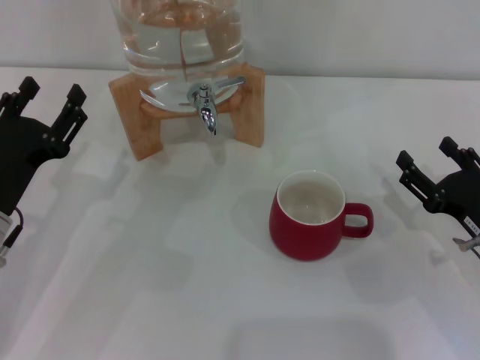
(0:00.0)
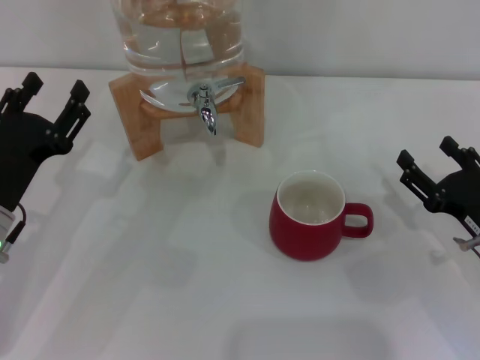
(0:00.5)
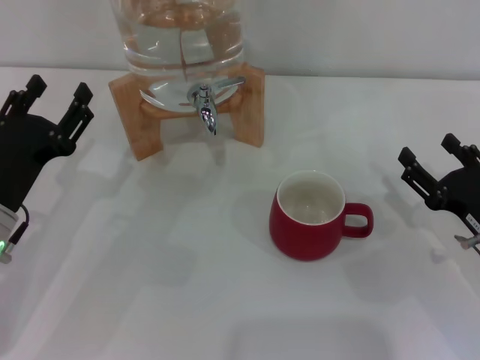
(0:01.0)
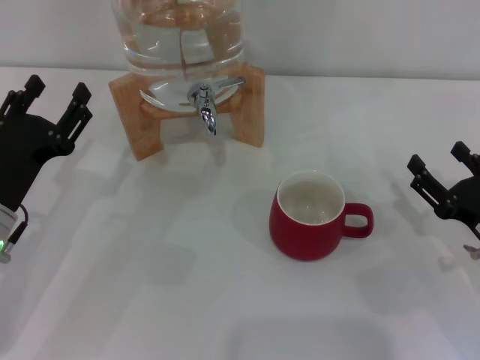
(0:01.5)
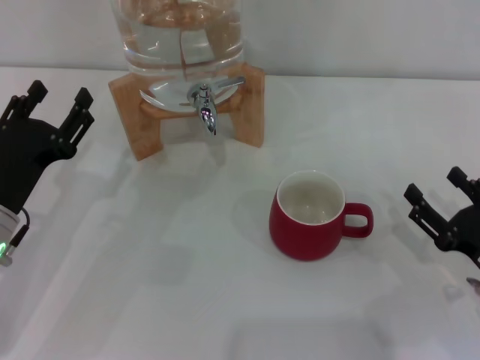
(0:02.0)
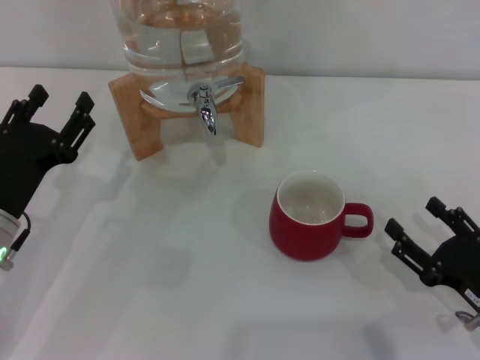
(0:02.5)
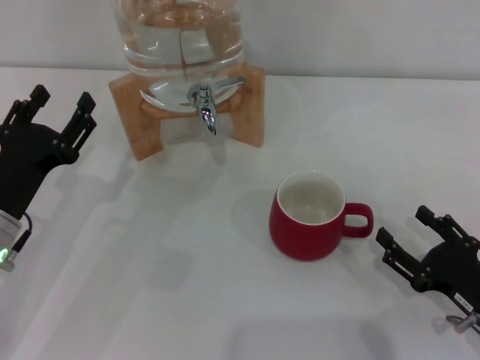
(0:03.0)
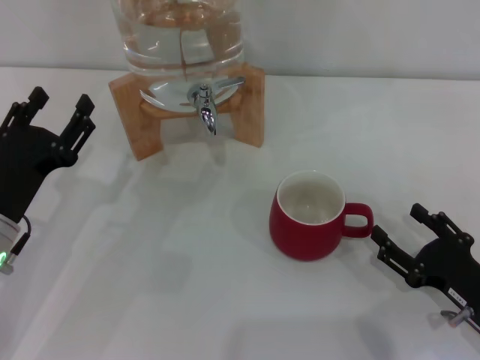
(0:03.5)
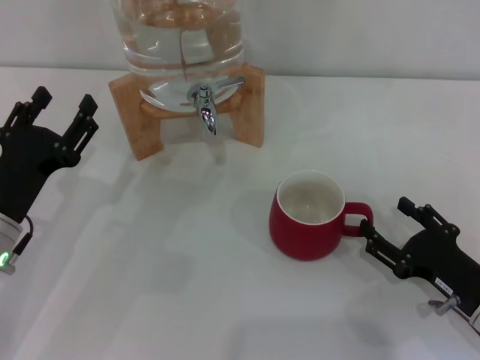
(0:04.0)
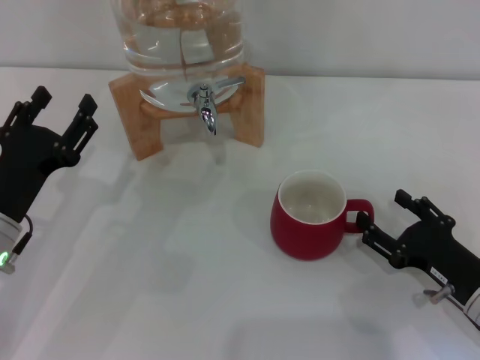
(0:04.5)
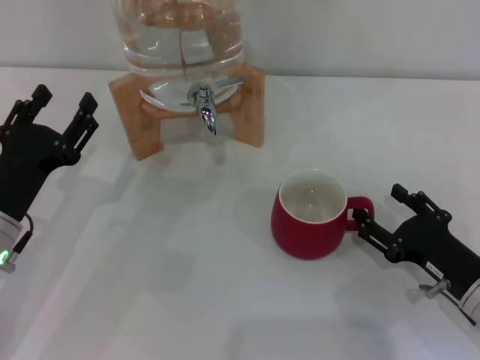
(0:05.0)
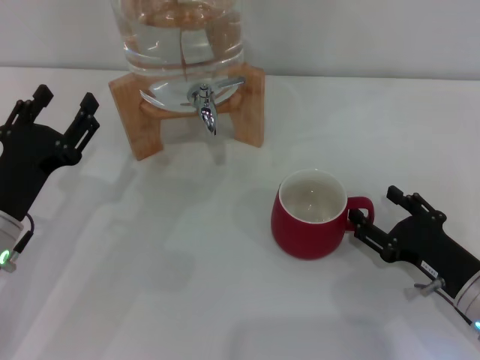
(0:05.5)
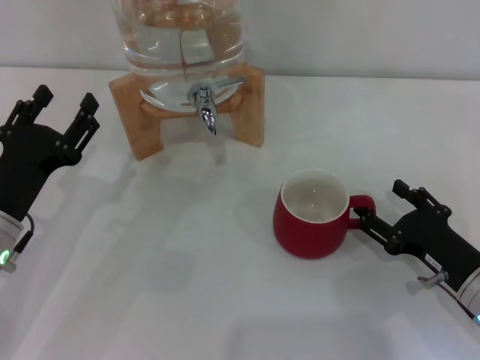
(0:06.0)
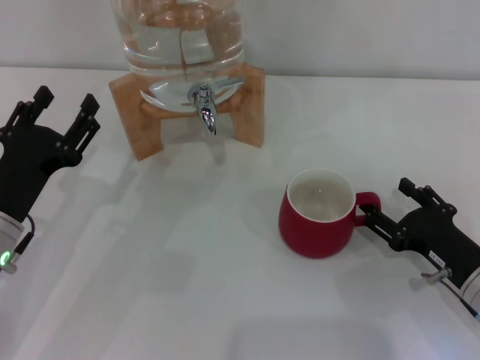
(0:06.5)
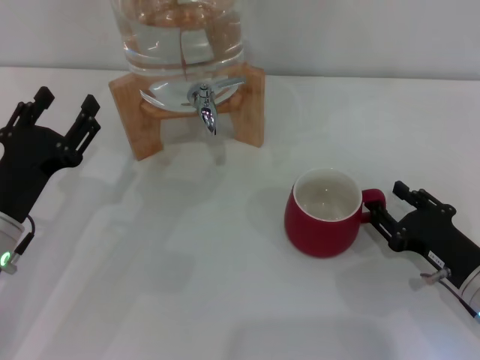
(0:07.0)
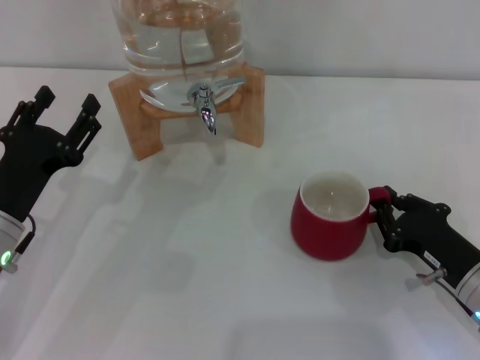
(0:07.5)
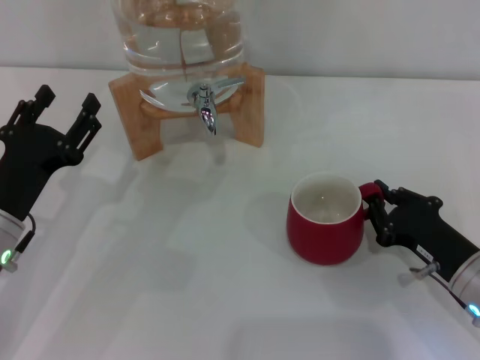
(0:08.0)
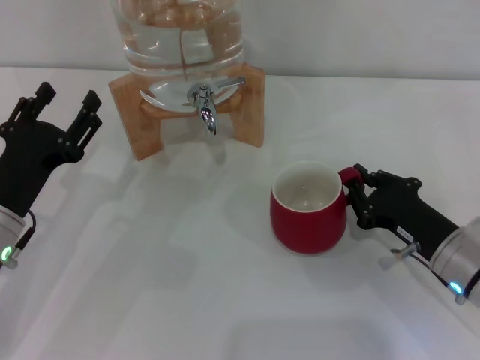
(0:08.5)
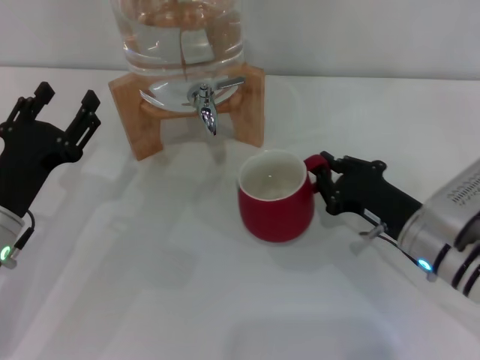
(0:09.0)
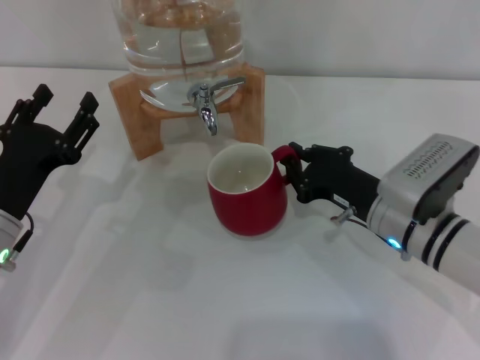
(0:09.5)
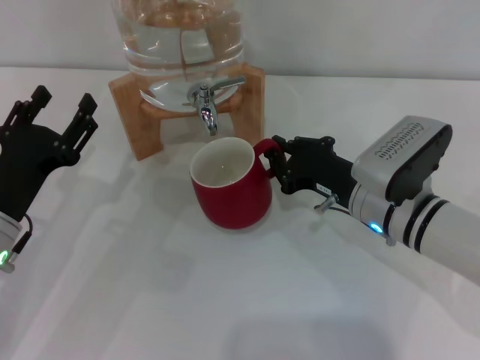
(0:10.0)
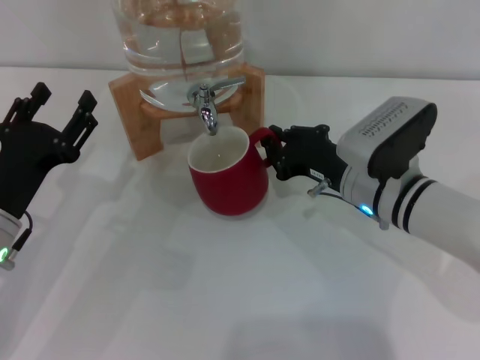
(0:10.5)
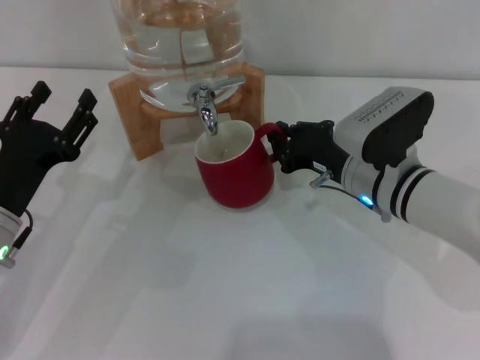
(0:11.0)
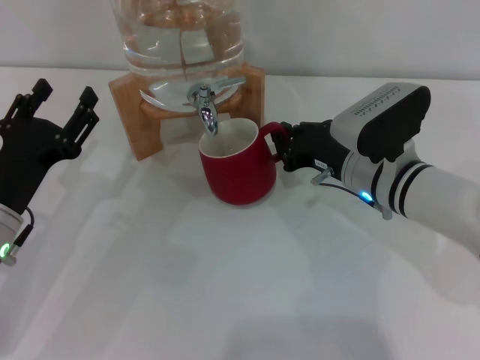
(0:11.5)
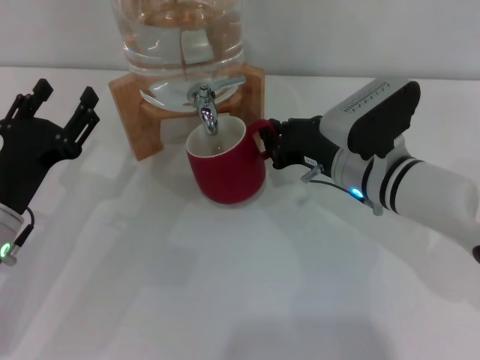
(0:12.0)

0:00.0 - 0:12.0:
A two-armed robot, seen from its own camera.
Task of the whole recording: the right gripper pick up the red cup and place it horizontally under the faucet, the left gripper turn on the faucet to fill the cup, and then turn off the faucet.
0:00.0 - 0:02.0: The grippers stay close to where they were, moving slightly.
0:02.0 - 0:06.0: The grippers move only a little.
0:06.0 - 0:08.0: The right gripper closes.
0:08.0 - 0:10.0: The right gripper shifts some 10 cm to the left and forward.
0:10.0 - 0:12.0: There are only small adjustments of the grippers.

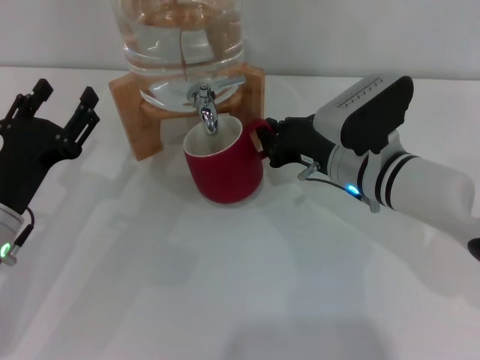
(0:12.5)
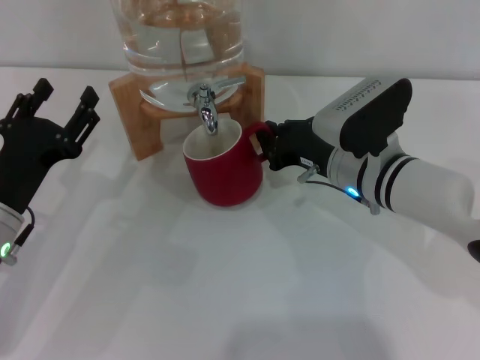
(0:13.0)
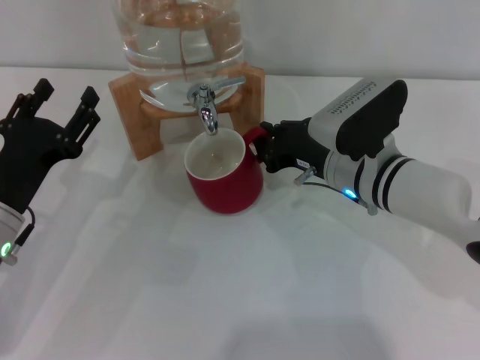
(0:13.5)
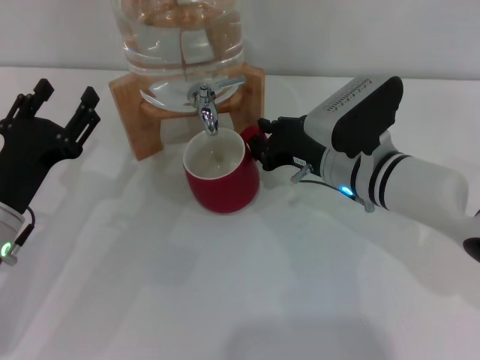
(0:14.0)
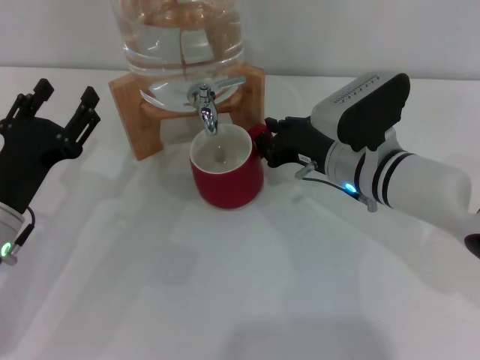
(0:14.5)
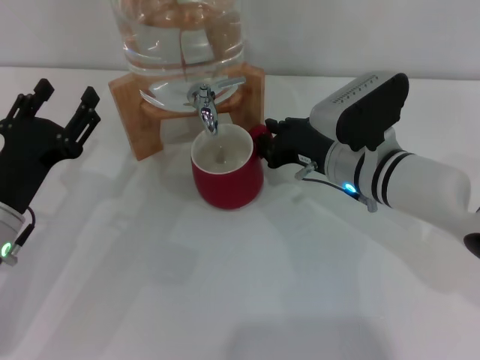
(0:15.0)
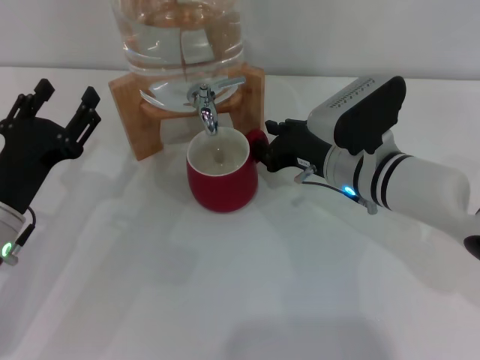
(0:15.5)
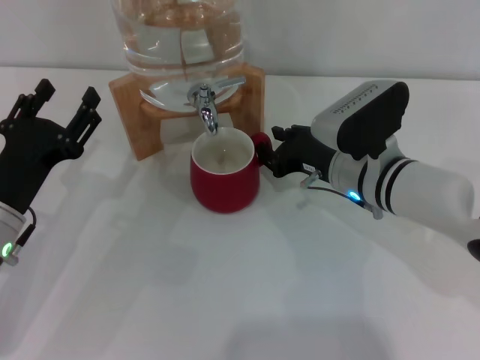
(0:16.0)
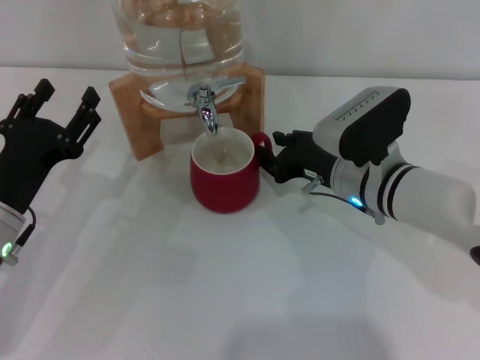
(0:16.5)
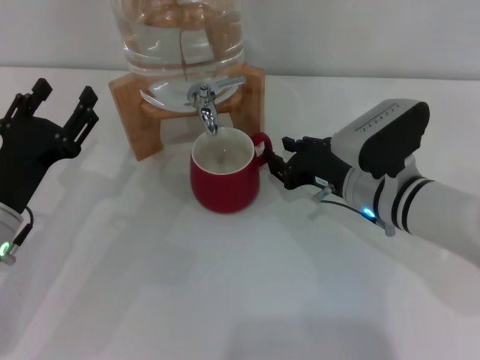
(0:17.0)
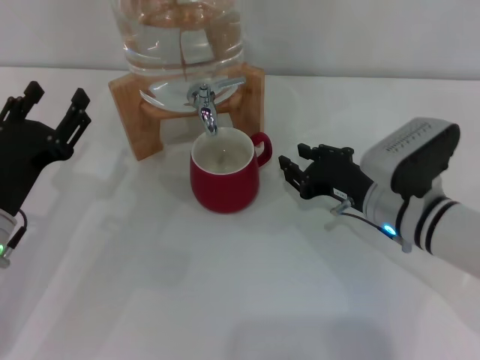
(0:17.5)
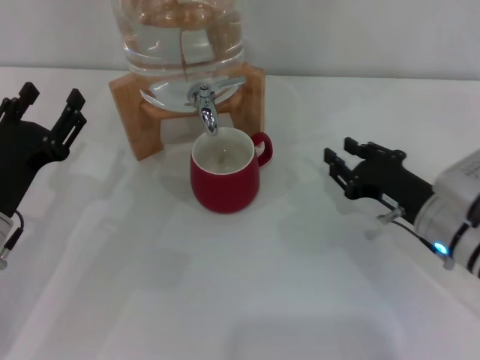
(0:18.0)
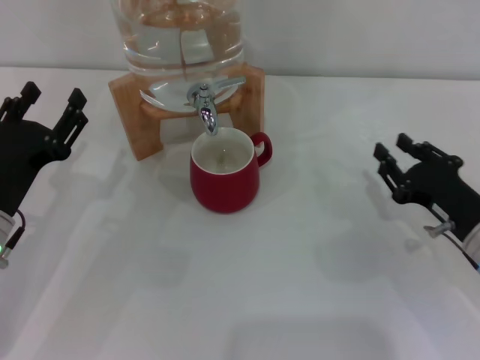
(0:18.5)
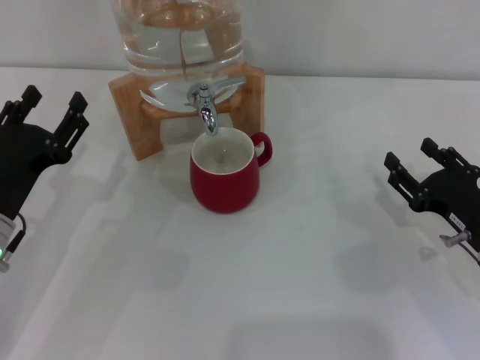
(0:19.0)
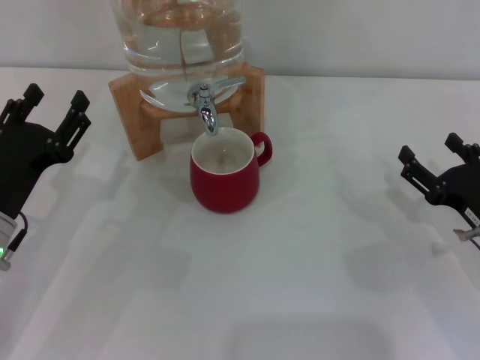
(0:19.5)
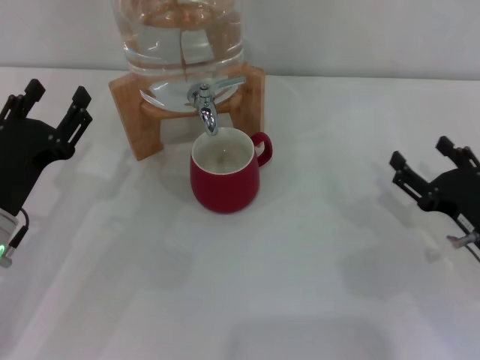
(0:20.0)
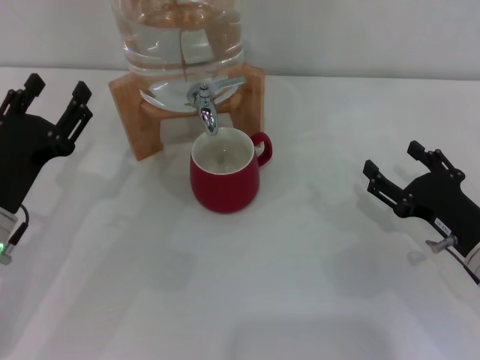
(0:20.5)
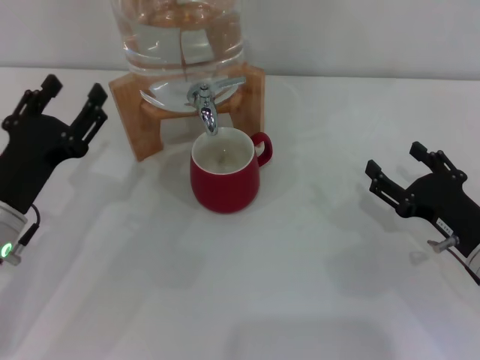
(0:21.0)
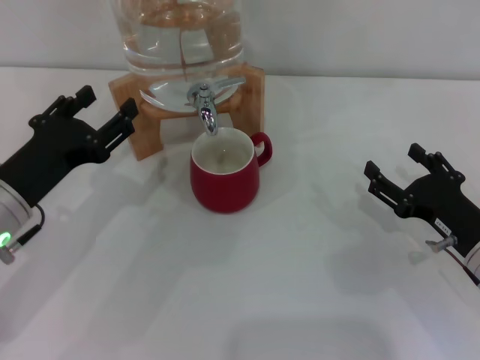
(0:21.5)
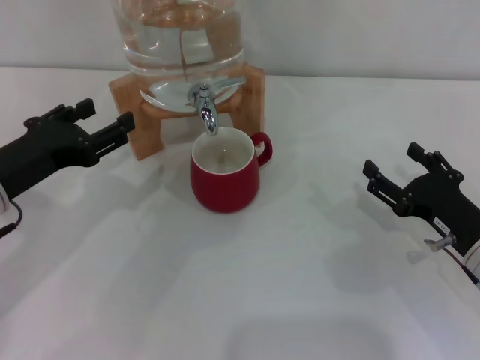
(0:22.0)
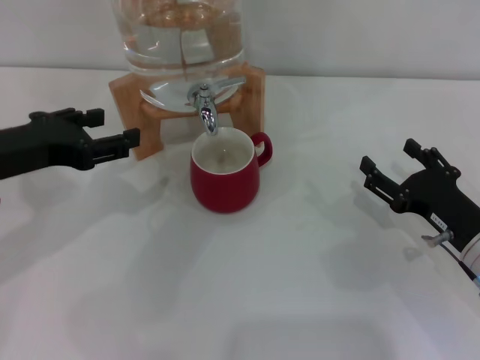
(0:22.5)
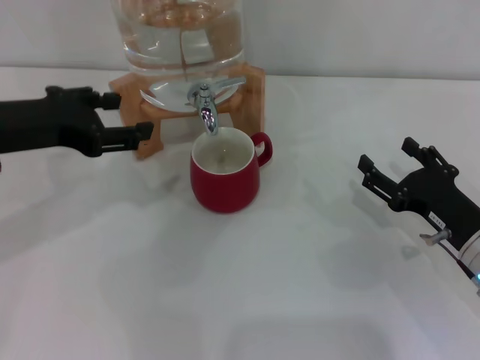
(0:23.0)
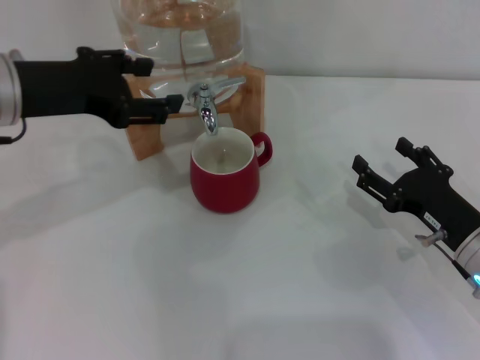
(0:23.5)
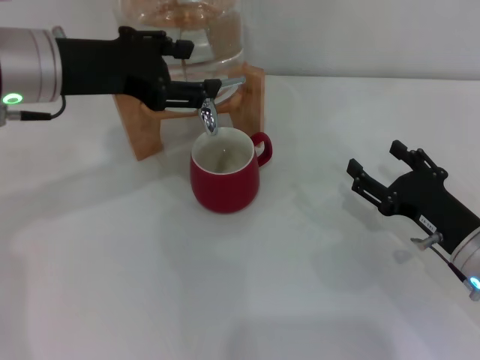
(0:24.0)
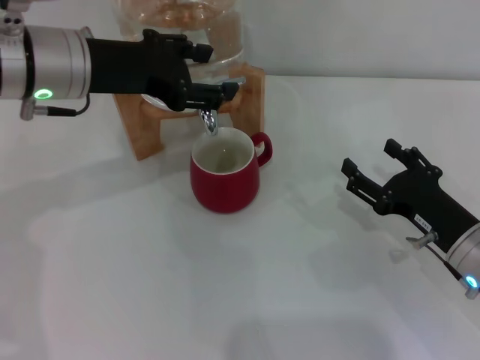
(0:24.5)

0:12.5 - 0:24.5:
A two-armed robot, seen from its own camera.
Task of the whole recording: the right gripper pick up the red cup and place it horizontally under the faucet, the left gripper turn on the faucet to fill the cup, and then turn off the faucet.
Step, 0:12.5 - 0:17.0: Move the cup beneath the water dispenser nozzle with the right gripper.
0:12.5 - 0:14.5: Both grippers stay put.
0:14.5 - 0:16.5: The grippers make only small movements.
0:16.5 - 0:18.5: The right gripper heads to the right and backward, covering roughly 15 cm.
0:18.5 - 0:20.5: The right gripper opens its fingers.
0:20.5 - 0:22.5: The left gripper moves upward, about 10 cm.
0:22.5 - 0:24.5: The left gripper shifts some 10 cm forward and to the right.

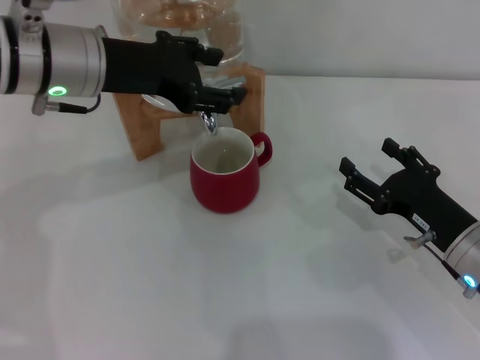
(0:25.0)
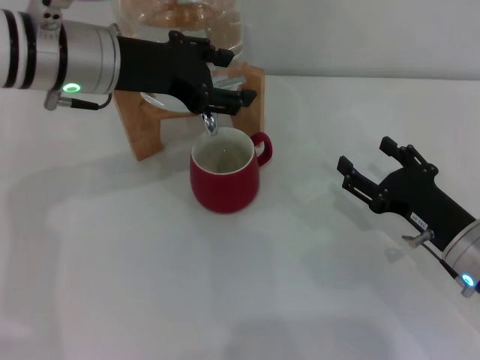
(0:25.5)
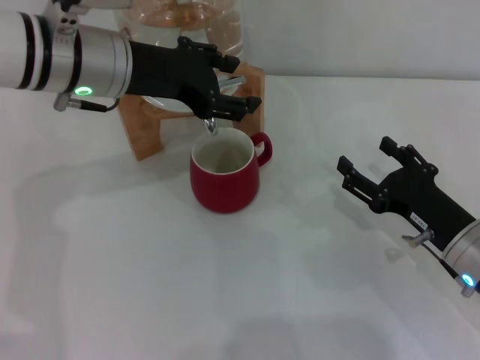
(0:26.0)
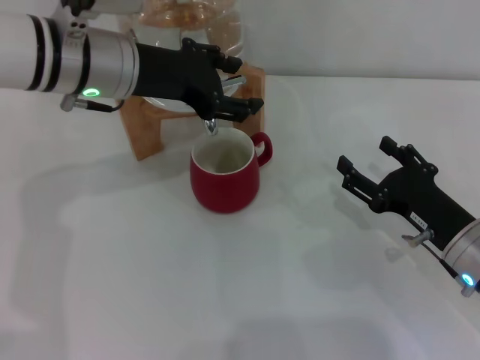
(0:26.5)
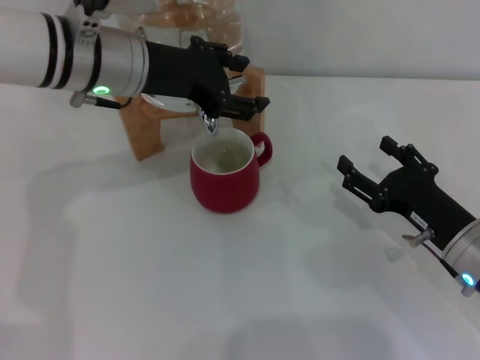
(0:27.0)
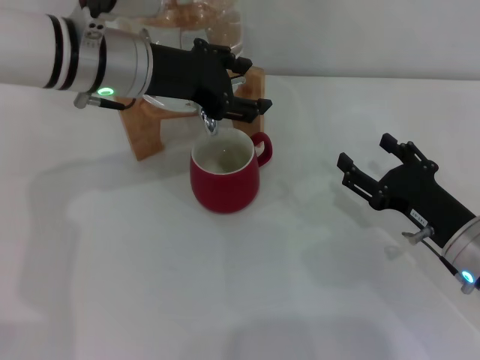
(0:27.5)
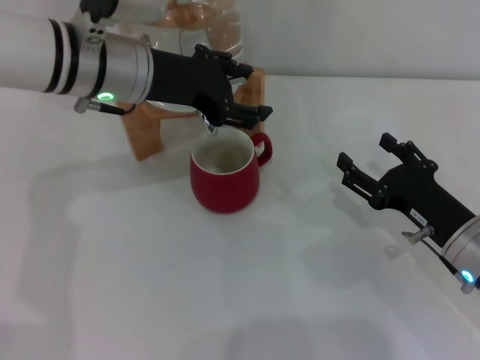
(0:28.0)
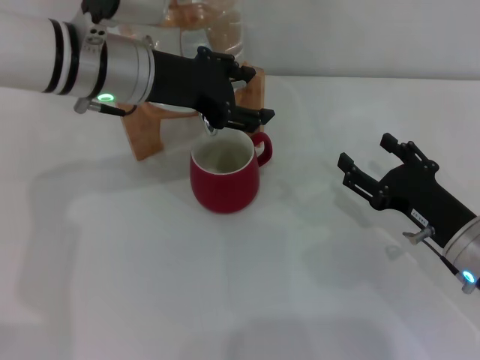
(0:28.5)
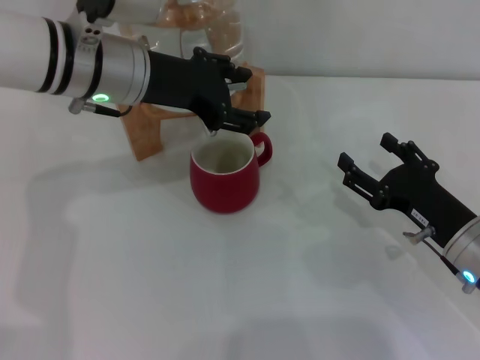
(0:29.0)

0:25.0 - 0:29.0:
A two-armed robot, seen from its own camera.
Task of the whole recording: the right gripper pick up the red cup and place it horizontally under the faucet, the left gripper turn on the faucet to fill the cup, and then turn off the faucet.
0:25.0 - 0:27.0: The grippers move only a little.
0:27.0 - 0:29.0: Both grippers stay about where they are.
